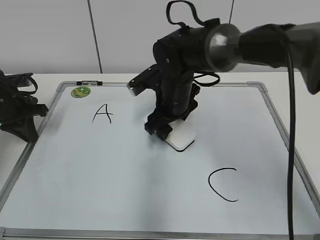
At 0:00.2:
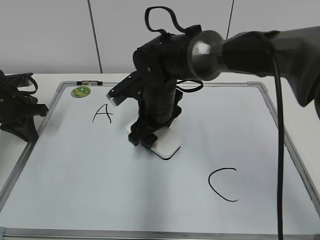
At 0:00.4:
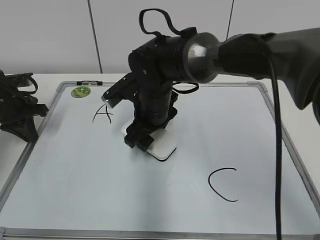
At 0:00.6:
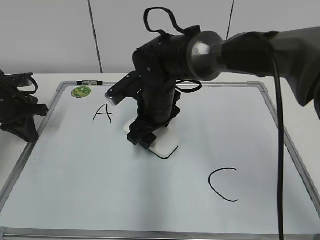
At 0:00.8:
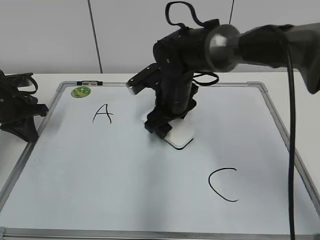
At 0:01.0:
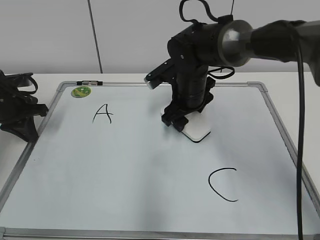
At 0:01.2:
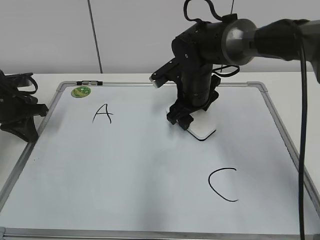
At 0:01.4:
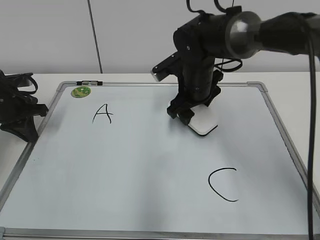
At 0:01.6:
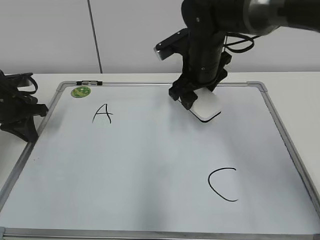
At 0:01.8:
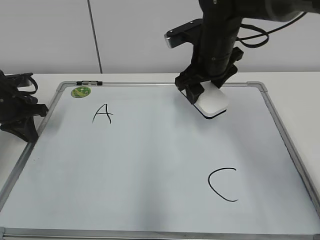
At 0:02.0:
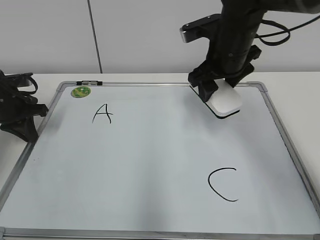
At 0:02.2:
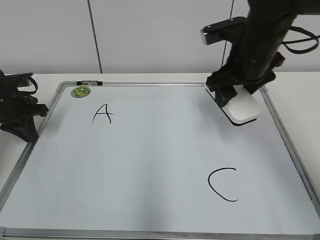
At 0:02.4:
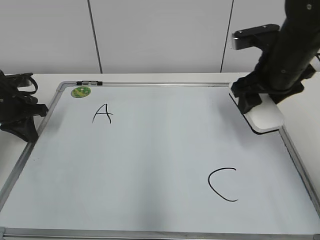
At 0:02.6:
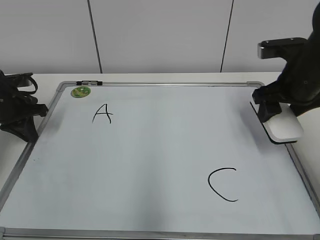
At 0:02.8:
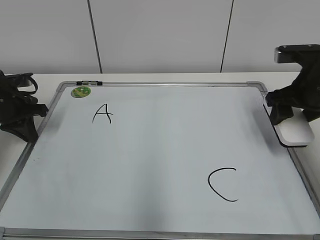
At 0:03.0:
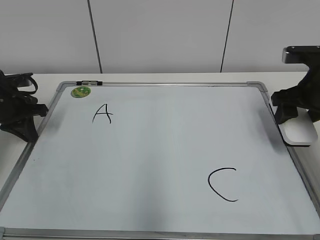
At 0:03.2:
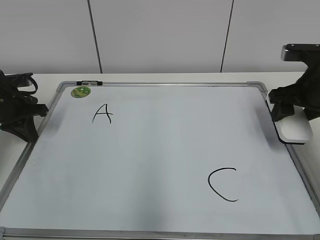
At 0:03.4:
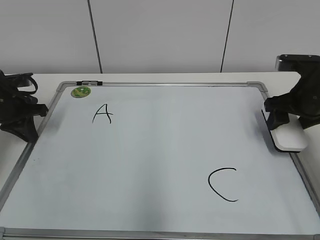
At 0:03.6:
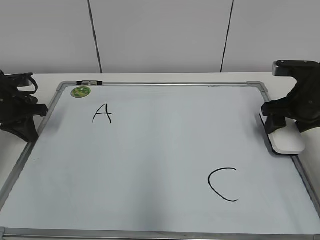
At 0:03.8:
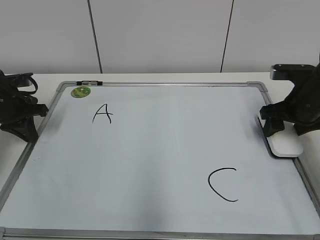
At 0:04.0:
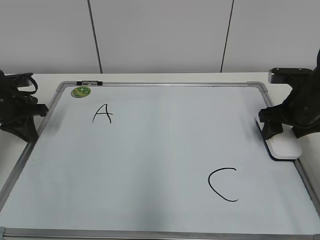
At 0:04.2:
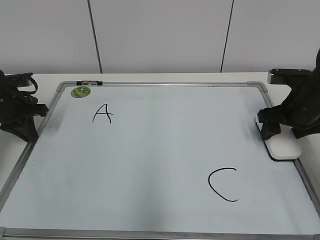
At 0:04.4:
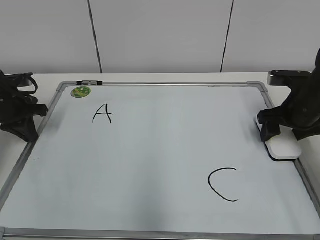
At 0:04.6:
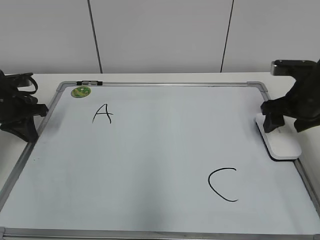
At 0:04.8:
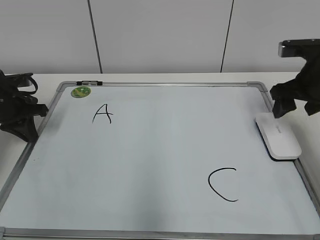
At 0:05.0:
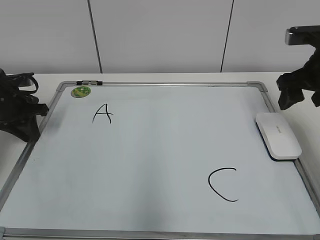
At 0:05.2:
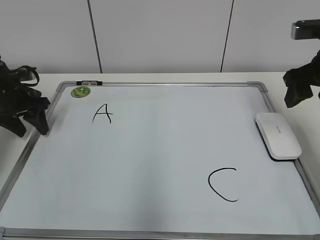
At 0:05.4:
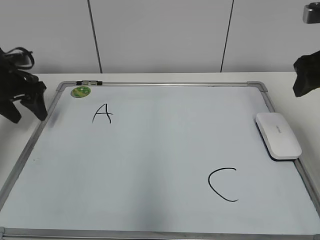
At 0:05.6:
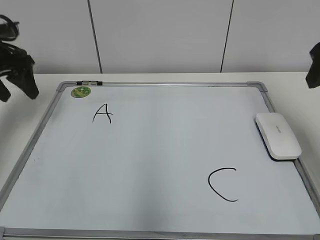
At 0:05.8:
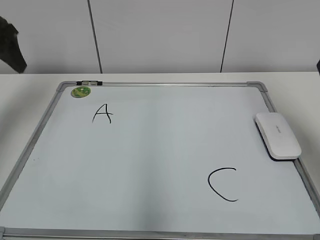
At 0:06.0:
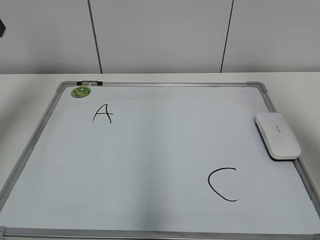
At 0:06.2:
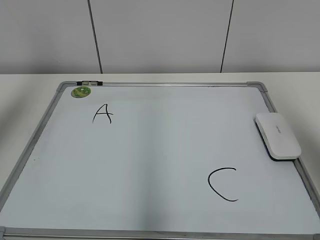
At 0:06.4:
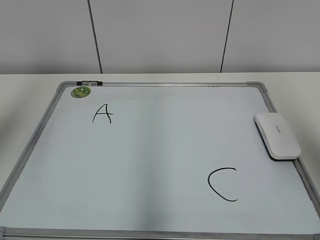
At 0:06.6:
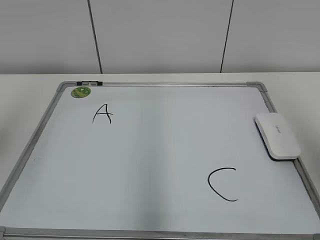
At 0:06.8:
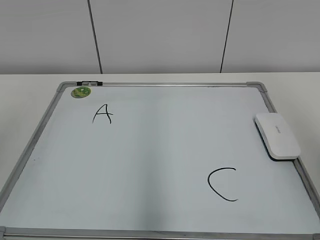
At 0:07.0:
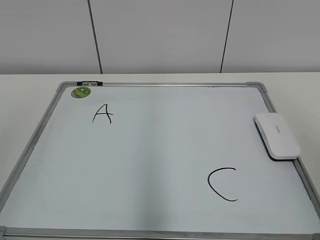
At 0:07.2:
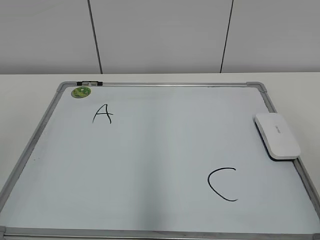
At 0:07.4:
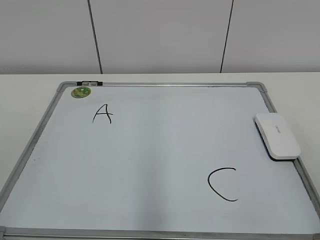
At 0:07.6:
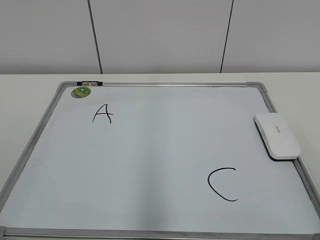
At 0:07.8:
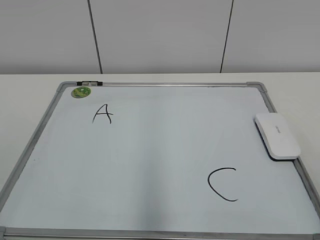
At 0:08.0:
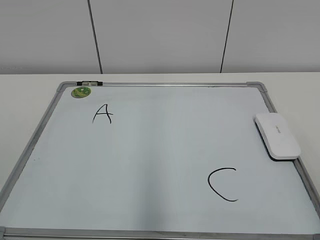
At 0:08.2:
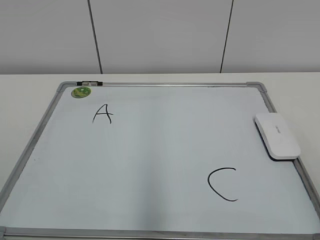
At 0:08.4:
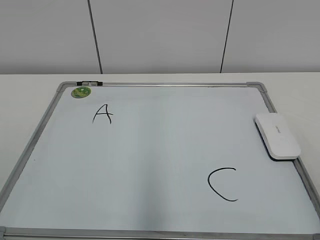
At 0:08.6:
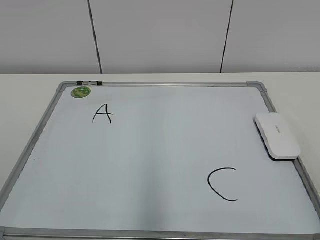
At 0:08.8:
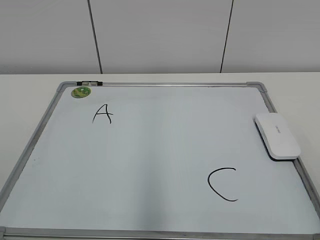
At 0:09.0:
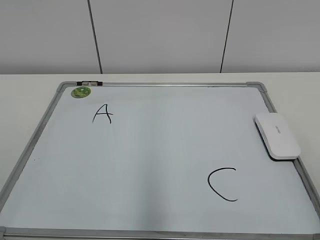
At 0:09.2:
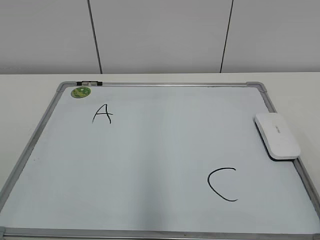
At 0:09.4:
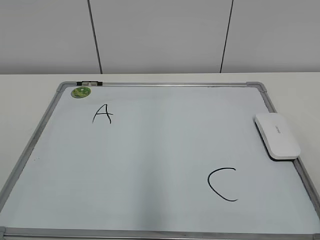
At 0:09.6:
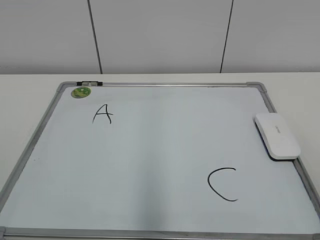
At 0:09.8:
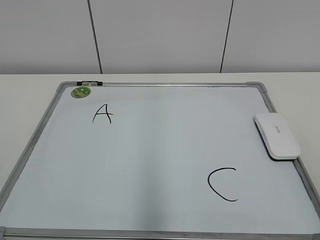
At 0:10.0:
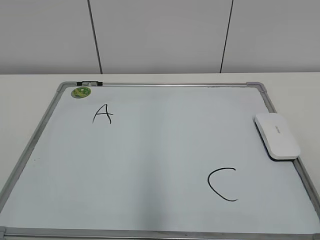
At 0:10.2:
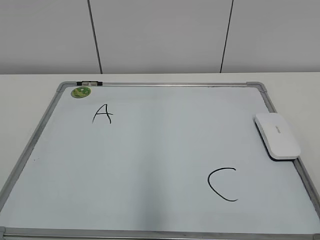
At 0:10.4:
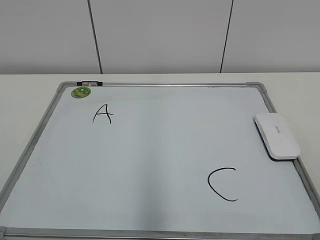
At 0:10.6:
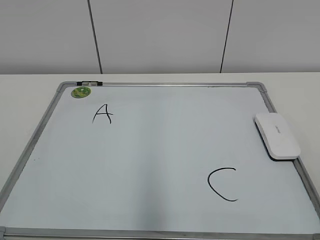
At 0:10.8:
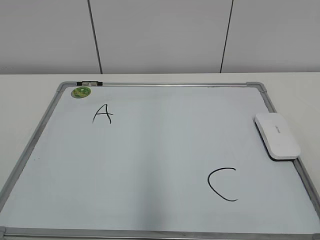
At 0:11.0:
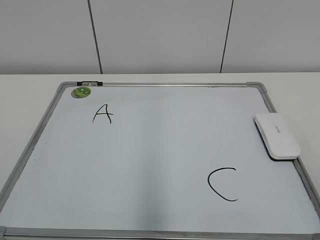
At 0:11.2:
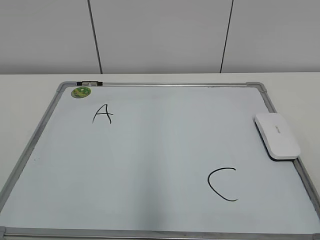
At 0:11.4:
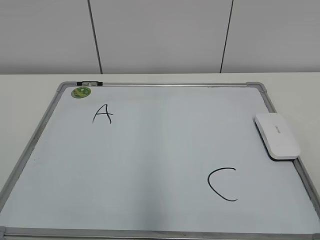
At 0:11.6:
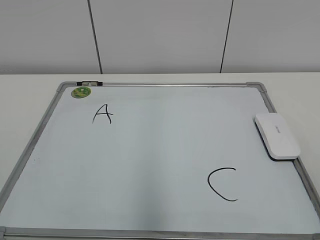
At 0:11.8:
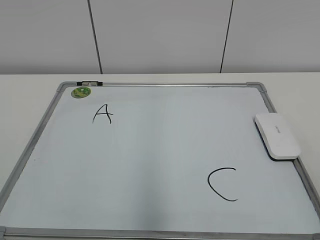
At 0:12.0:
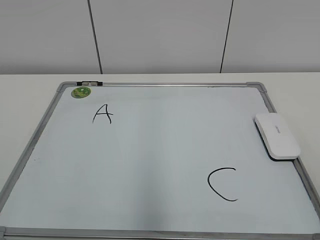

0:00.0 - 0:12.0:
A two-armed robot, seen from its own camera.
Task of the whole recording: pick up the eraser on the blackboard and erase the letter "B".
Step, 0:01.4 - 0:04.2: Put down the eraser with your right hand.
0:00.0 - 0:01.6: The right gripper goes some 5 cm upward.
0:01.6 - 0:03.0: The right gripper goes roughly 20 cm to the right.
0:03.0 - 0:04.4: The right gripper is displaced downward by approximately 5 cm, and opens.
0:04.4 - 0:06.0: The left gripper moves upward, approximately 25 cm, and opens its fingers. Meanwhile the right gripper goes approximately 25 cm upward and backward.
0:06.0 - 0:07.6: The grippers both shift backward by approximately 25 cm.
0:10.4 - 0:12.0: Both grippers stay put.

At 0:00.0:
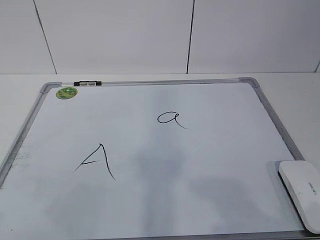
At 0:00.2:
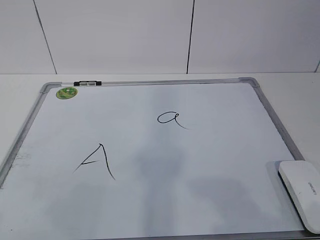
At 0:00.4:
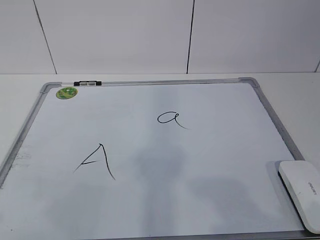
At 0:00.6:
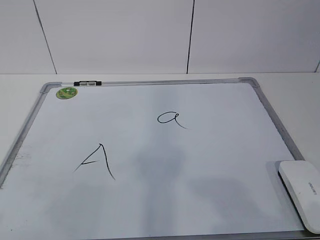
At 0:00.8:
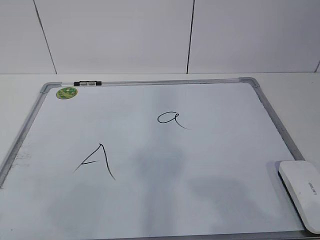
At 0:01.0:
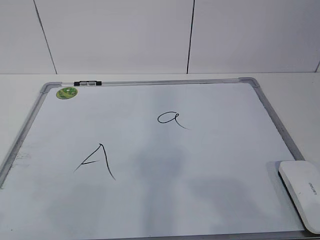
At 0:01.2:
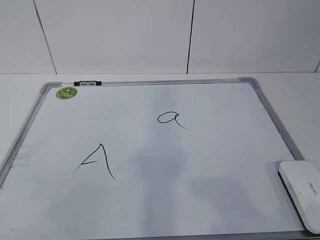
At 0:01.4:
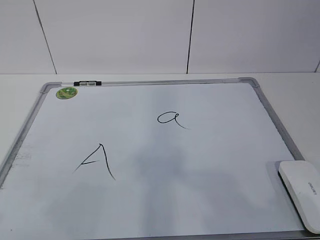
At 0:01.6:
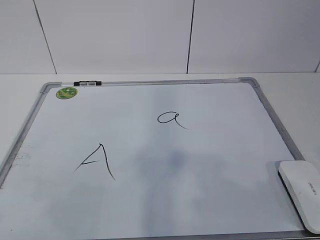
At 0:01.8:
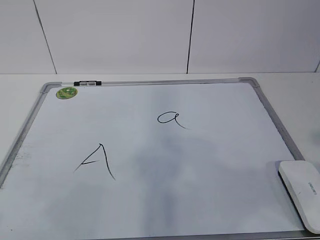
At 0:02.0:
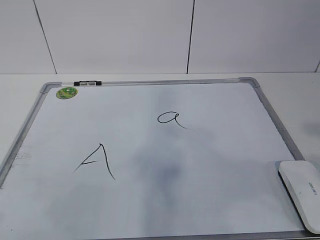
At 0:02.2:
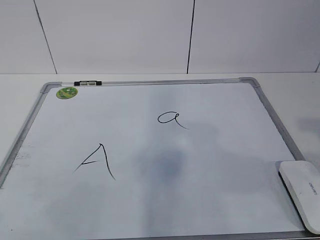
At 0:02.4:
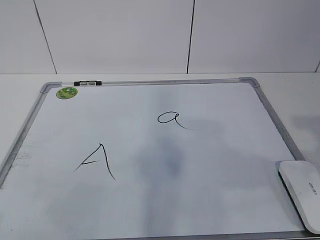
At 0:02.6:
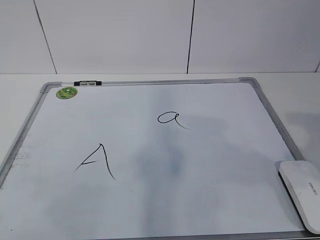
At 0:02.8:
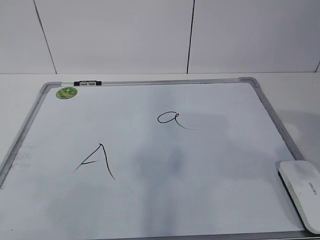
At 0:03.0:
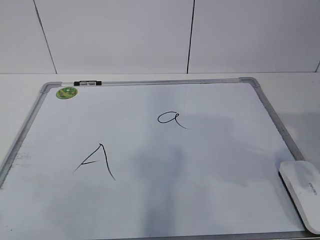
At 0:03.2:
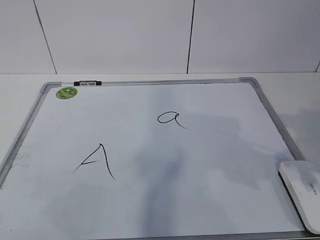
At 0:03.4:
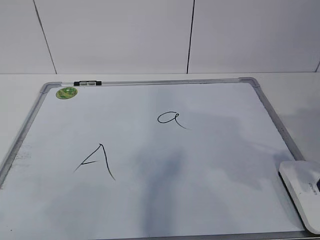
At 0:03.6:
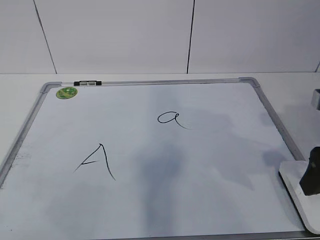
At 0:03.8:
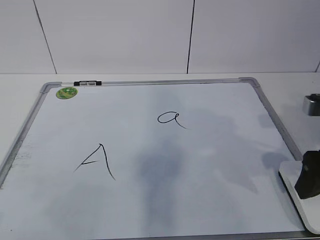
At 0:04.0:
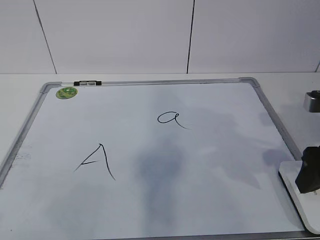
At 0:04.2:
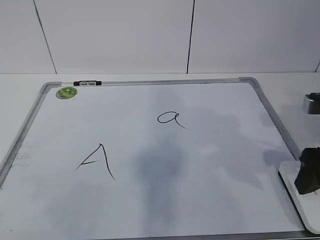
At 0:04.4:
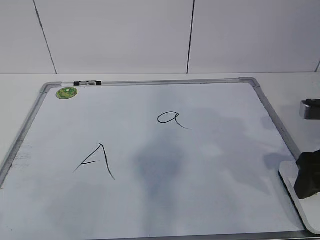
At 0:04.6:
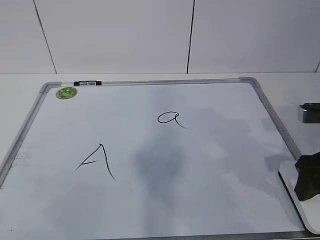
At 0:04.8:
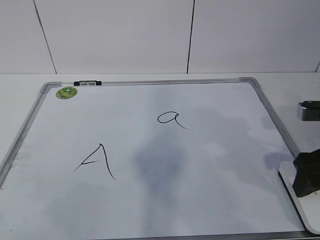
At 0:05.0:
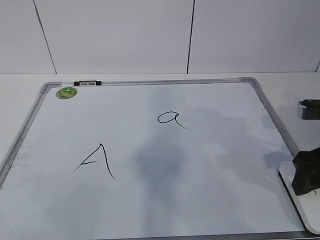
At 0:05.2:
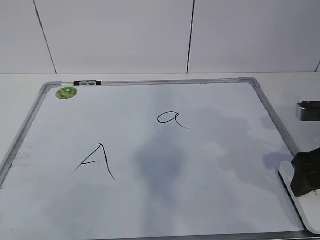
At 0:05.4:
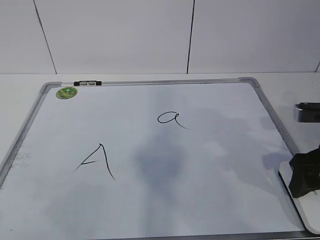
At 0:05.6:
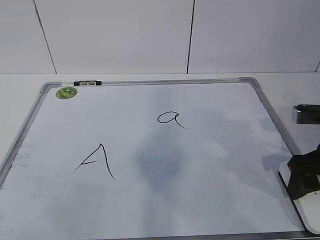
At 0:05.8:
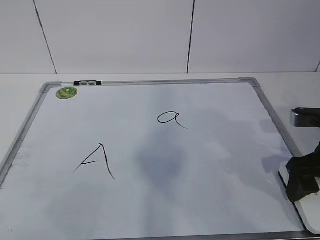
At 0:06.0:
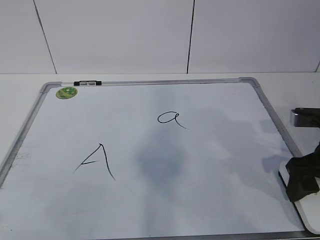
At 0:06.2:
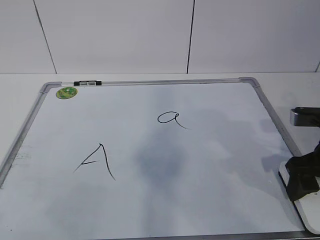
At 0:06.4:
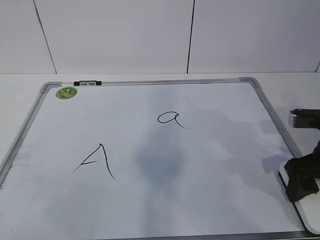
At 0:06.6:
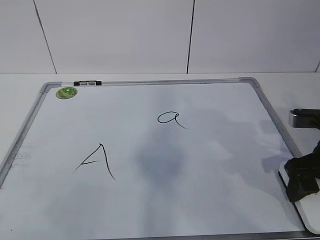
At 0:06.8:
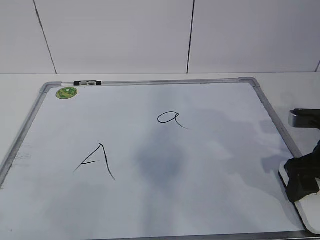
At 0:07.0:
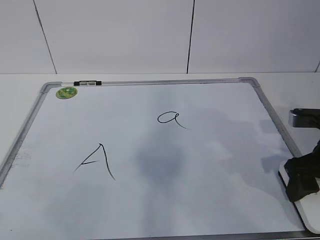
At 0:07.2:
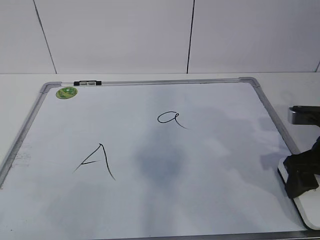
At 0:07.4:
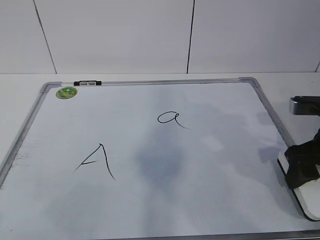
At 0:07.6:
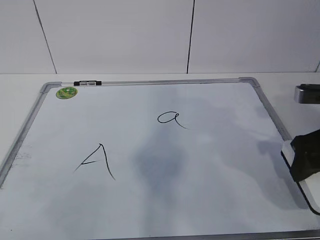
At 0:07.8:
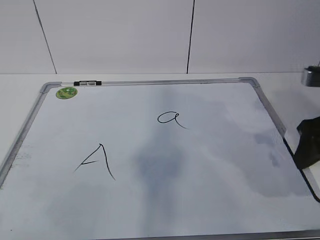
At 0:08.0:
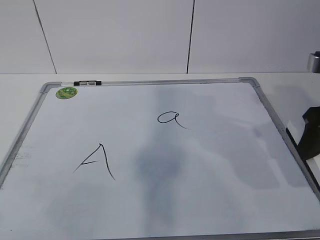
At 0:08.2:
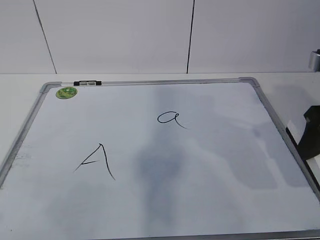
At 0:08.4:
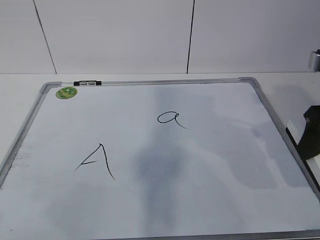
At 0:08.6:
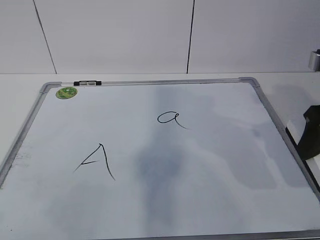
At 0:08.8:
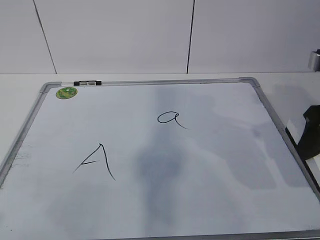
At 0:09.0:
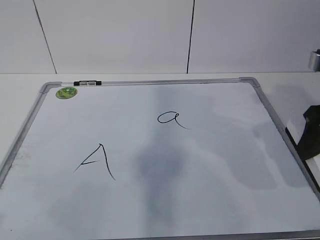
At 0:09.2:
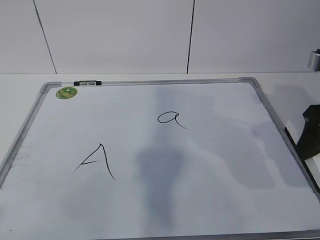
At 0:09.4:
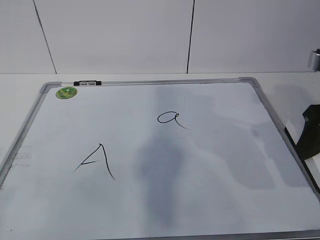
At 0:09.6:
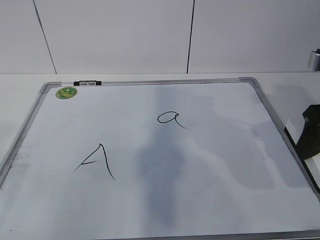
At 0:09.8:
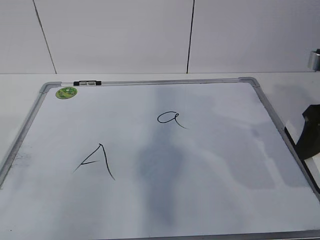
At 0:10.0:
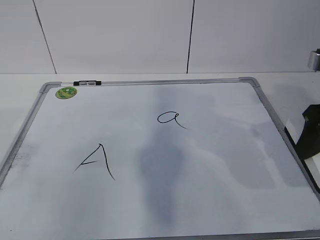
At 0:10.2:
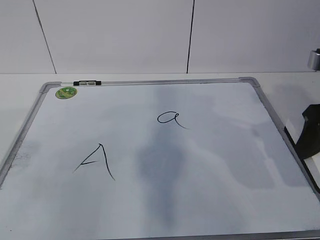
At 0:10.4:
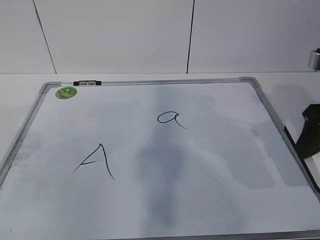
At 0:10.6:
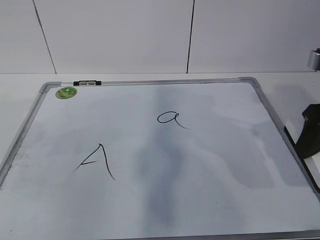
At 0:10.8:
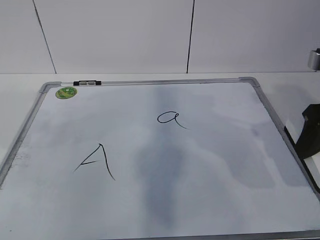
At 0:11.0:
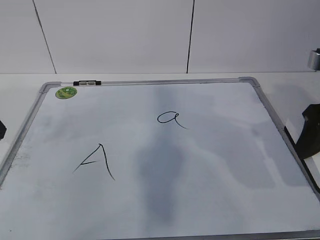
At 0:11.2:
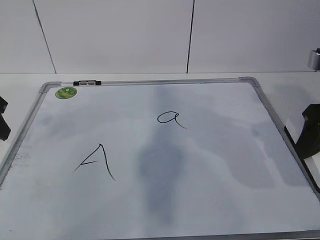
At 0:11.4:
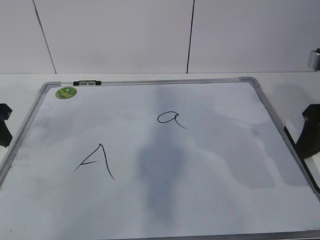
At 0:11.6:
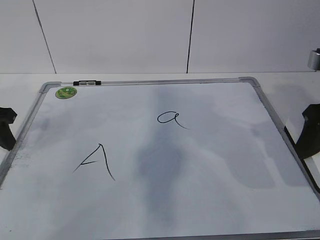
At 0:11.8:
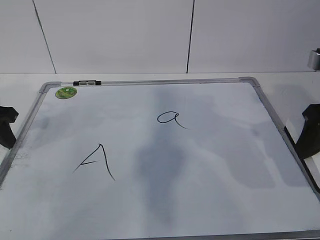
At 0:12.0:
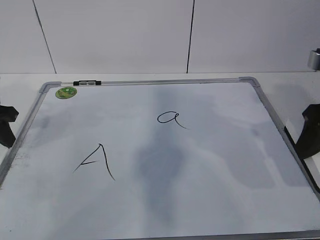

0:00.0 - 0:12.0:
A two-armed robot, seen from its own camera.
Task of the whole recording: pick up the eraser on the blackboard and erase the letter "a".
Step, 0:00.0 - 0:05.4: Grab the eraser with your right hand.
Step, 0:05.8 - 0:11.4: Hold the drawing board steady with your left hand.
0:01.6 - 0:03.0: The right gripper moves forward, approximately 15 cm.
0:03.0 - 0:04.4: The right gripper heads forward and downward, covering about 10 cm.
0:04.4 - 0:07.6: The grippers move only a little.
0:07.6 - 0:09.0: The right gripper shifts about 5 cm upward.
0:10.4 - 0:12.0: The left gripper travels forward and downward by some 15 cm.
